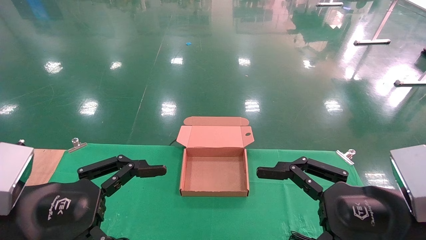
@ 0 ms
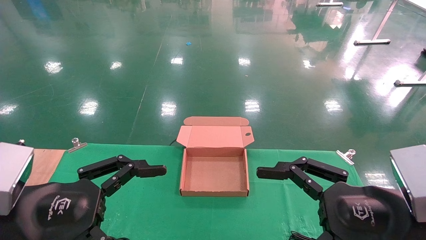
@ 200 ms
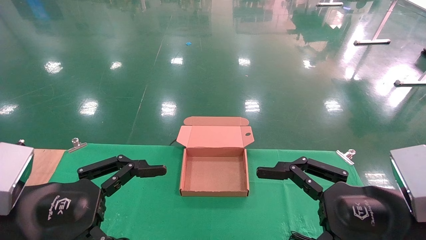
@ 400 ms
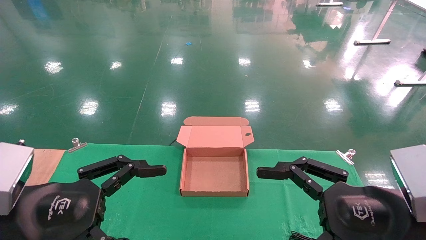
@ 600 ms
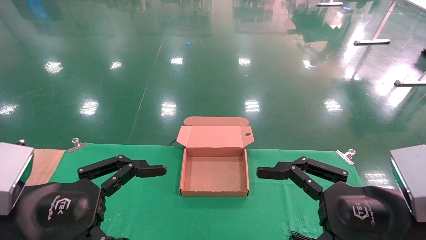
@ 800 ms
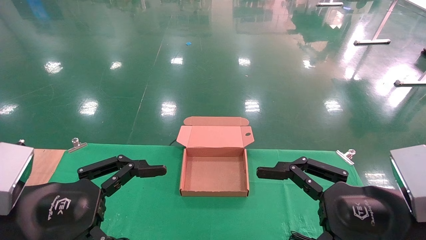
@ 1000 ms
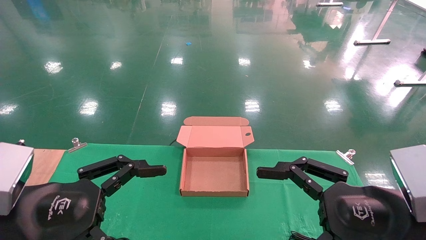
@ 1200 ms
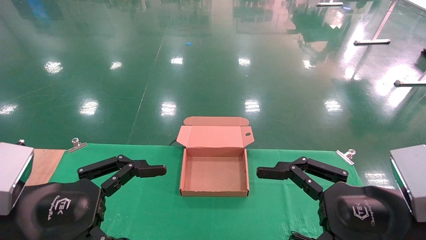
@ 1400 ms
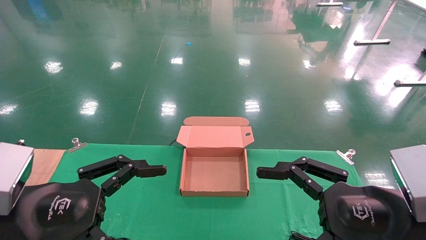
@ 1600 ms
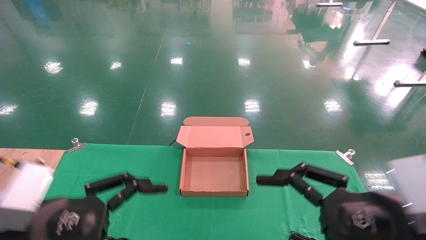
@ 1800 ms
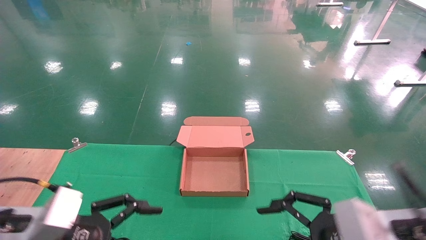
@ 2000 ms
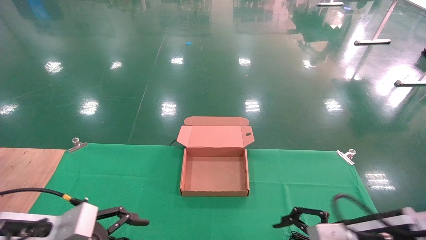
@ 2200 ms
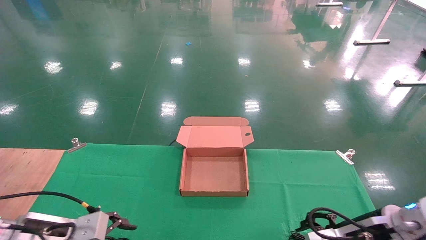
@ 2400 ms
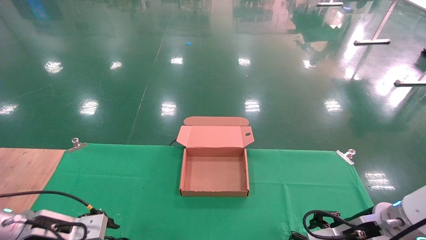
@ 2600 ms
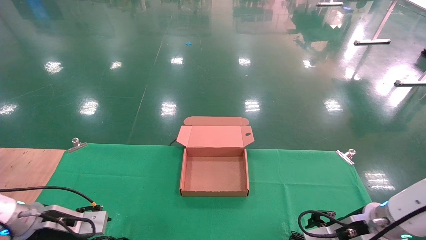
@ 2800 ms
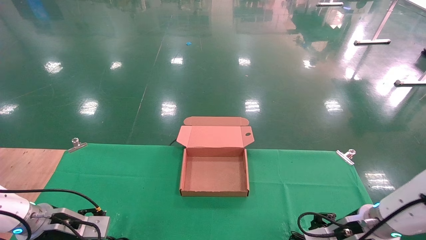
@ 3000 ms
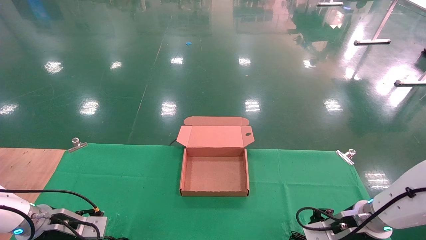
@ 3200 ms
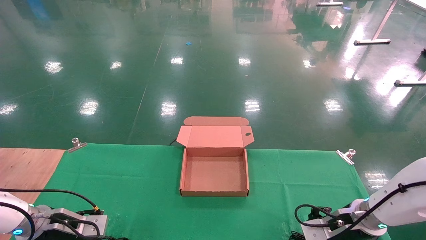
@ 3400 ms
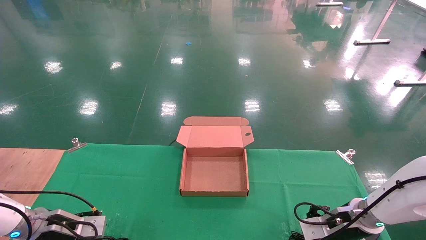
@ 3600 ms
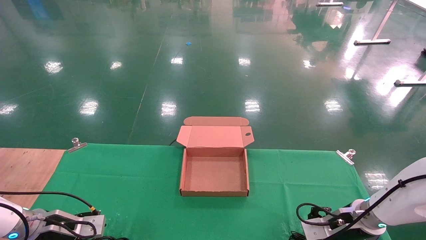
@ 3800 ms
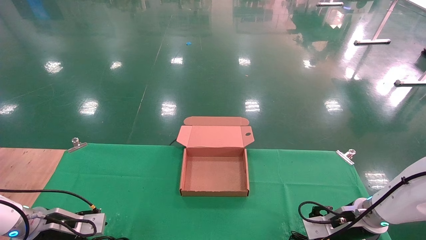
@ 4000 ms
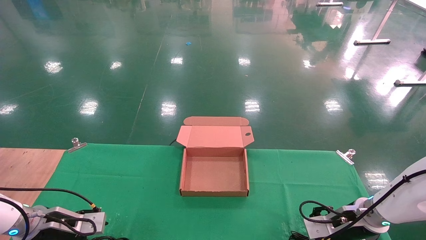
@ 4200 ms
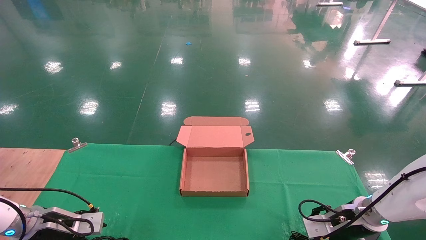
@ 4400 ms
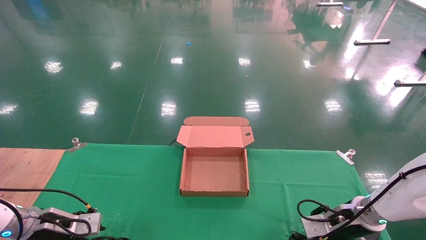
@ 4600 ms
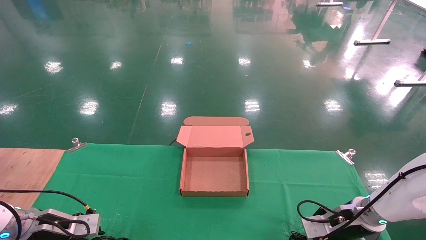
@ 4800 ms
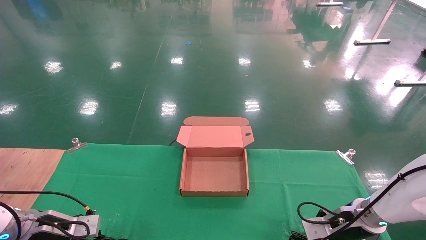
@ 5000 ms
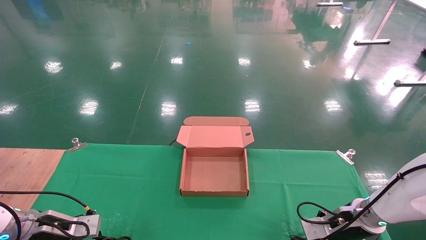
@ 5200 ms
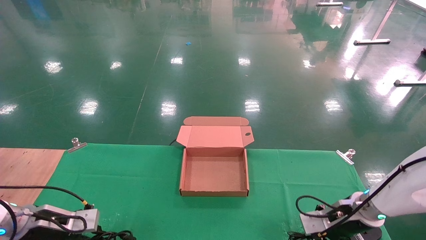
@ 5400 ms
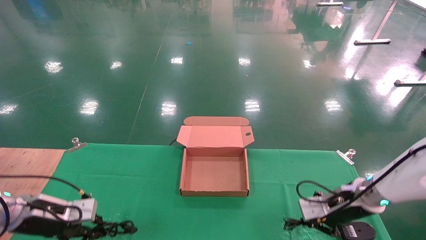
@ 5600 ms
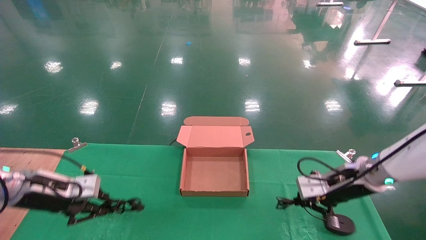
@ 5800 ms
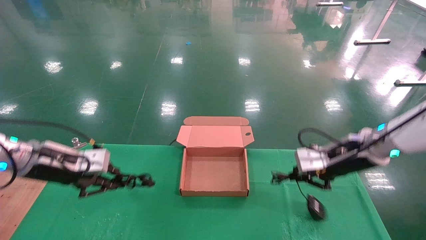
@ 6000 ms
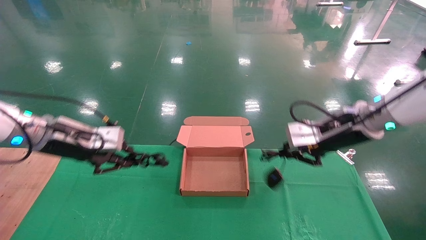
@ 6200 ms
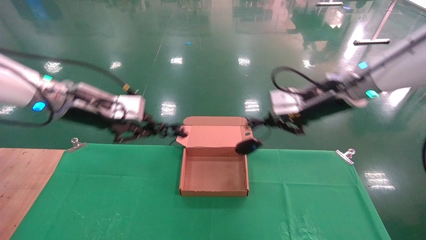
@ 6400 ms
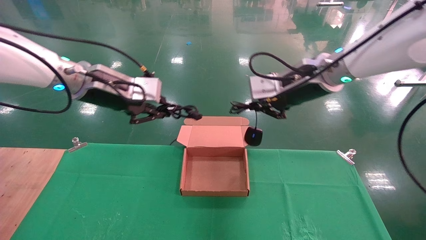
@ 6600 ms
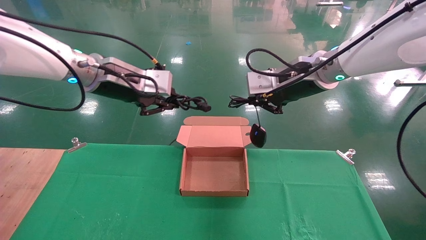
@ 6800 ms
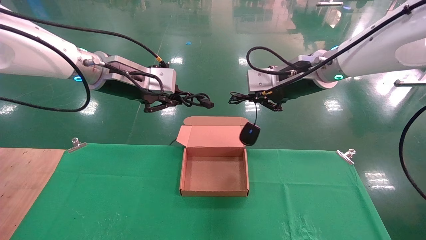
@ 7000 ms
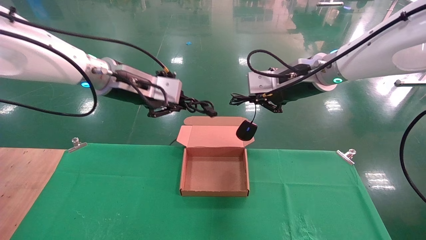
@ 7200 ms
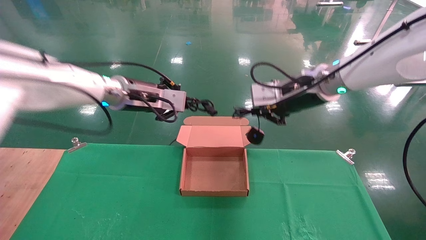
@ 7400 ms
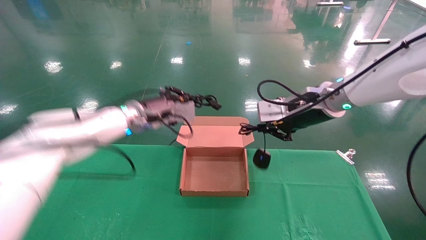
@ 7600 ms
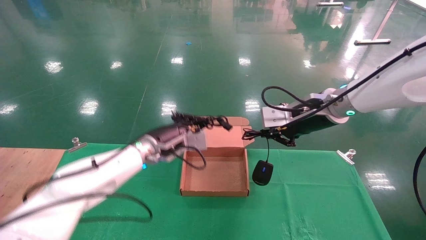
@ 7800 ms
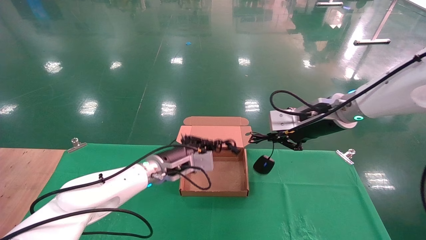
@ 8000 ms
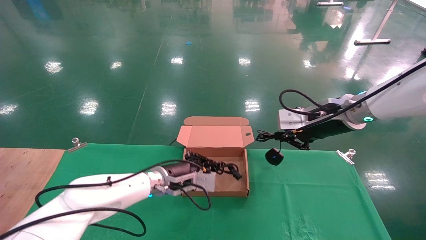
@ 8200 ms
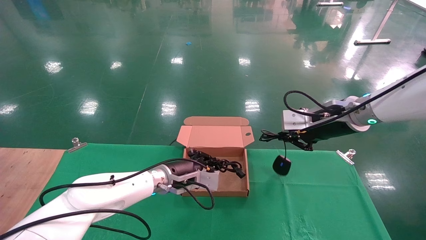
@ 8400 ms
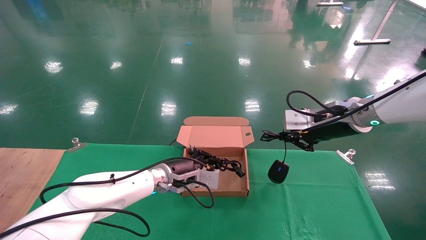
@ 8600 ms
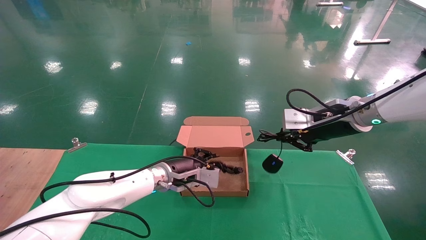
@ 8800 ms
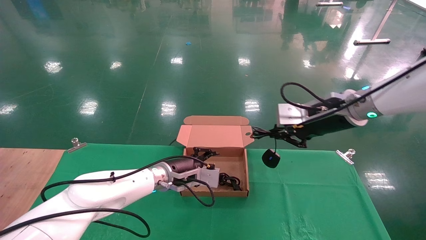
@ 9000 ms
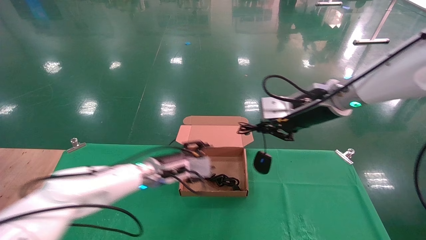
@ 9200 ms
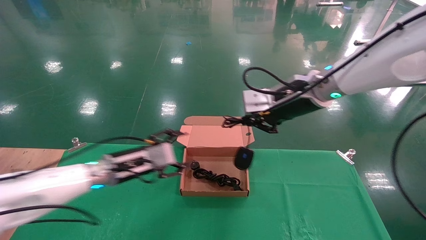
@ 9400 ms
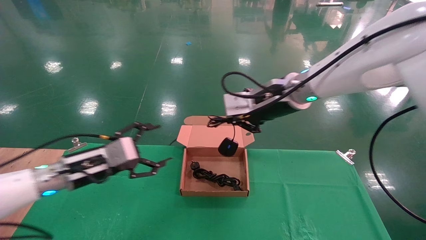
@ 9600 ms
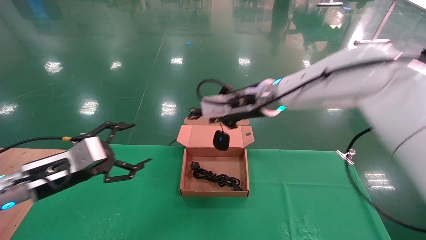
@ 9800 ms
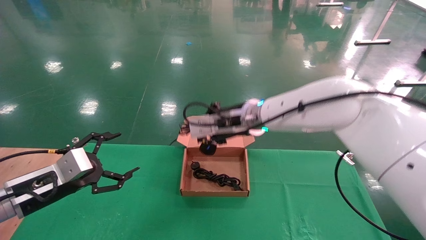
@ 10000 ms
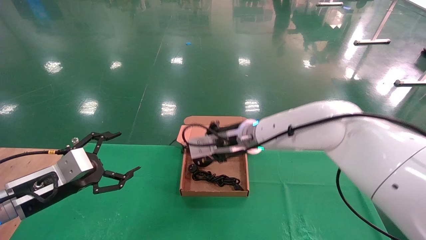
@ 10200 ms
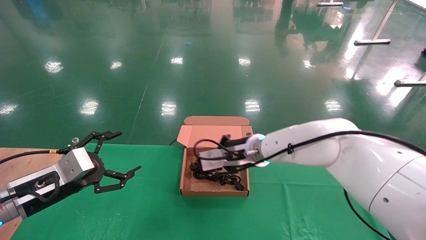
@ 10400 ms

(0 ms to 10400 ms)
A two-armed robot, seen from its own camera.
Step, 2000 ms - 5800 ms: Grab and lift both the mouse and power cord from the accessory packaging area at the same time.
0 ms - 1400 ms: Both grippers stay put.
1400 ms - 3000 ms: The left gripper is displaced forward, downward and to the left by about 25 cm. Meanwhile the right gripper goes about 20 cm forward and downward.
3000 ms - 4400 ms: The right gripper changes place by some 5 cm.
4400 ms - 6000 ms: The grippers both shift upward by some 15 cm. The right gripper closes its fingers. The left gripper closes its fingers.
6000 ms - 7400 ms: The left gripper moves to the right, upward and forward, about 20 cm. Meanwhile the right gripper shifts approximately 15 cm upward and to the left.
7400 ms - 9000 ms: The left gripper is displaced downward by some 20 cm.
9000 ms - 10400 ms: The right gripper shifts roughly 20 cm to the left and downward, while the left gripper goes some 25 cm to the left and backward, and opens its fingers.

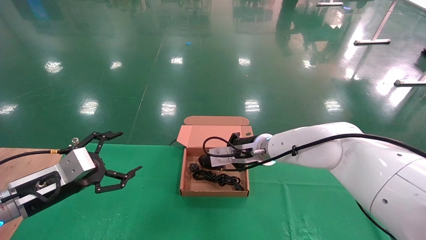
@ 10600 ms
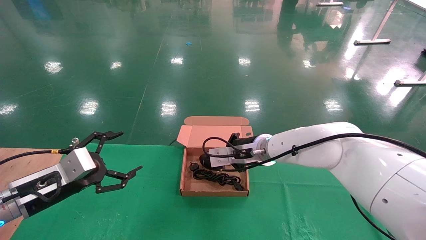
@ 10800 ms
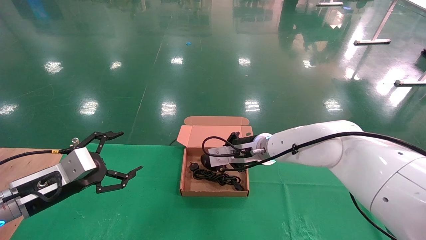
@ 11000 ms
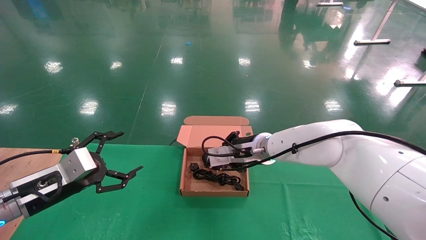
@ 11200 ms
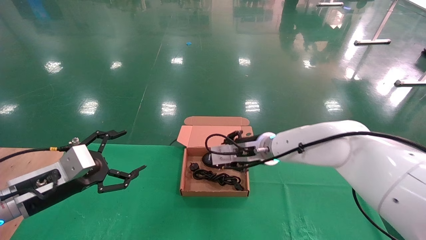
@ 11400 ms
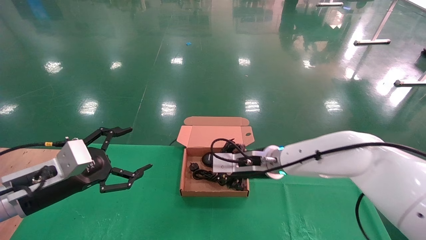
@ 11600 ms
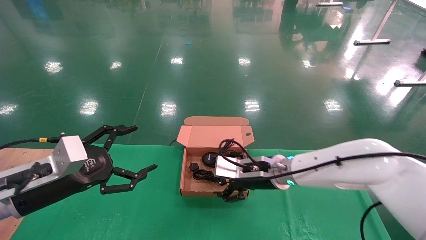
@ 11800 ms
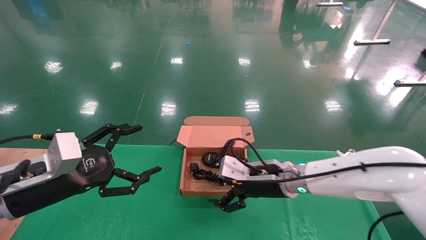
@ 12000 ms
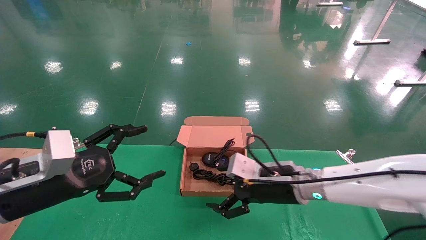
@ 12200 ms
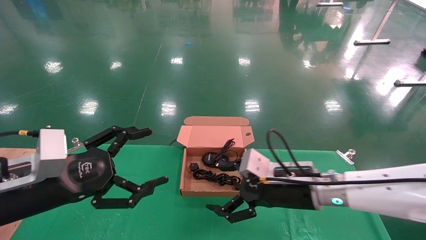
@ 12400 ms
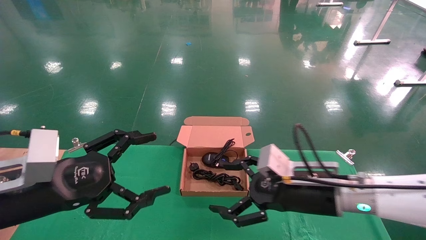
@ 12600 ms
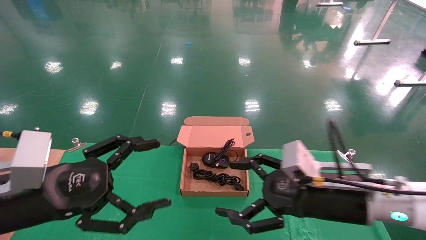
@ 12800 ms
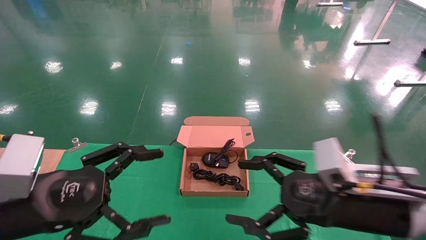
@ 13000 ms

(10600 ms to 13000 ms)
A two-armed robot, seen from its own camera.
10600 ms - 11800 ms: The right gripper moves some 5 cm, and opens up, while the left gripper ends up roughly 5 cm from where it was.
11800 ms - 13000 ms: The left gripper goes about 10 cm backward. Meanwhile the right gripper shifts some 20 cm backward and to the right.
